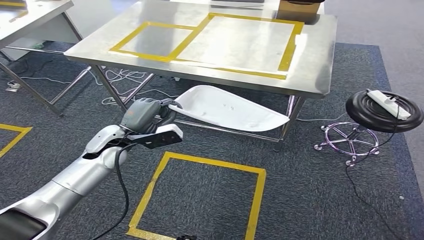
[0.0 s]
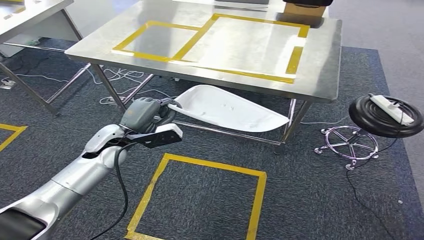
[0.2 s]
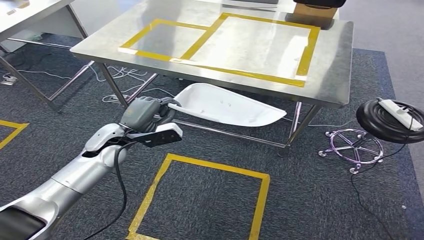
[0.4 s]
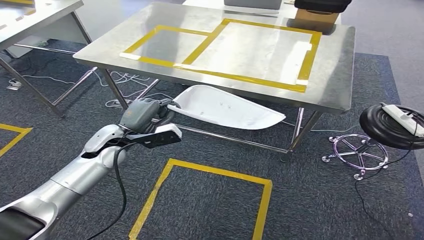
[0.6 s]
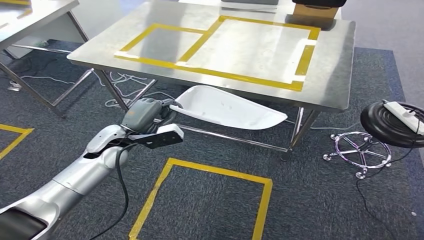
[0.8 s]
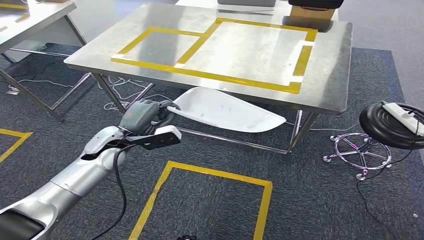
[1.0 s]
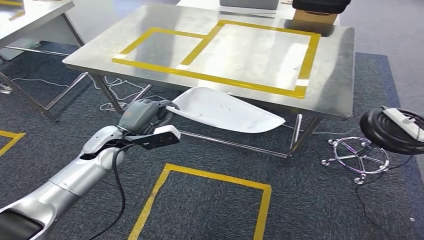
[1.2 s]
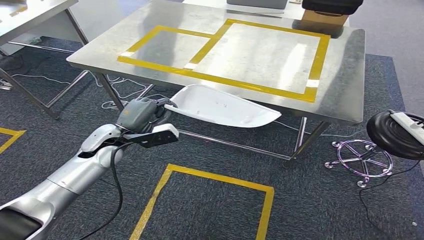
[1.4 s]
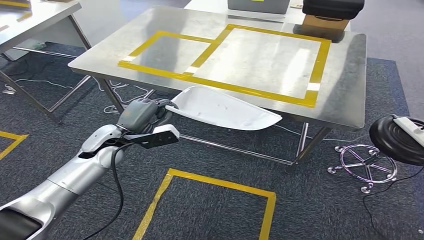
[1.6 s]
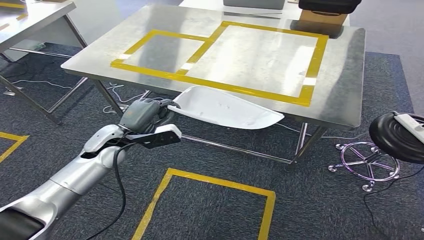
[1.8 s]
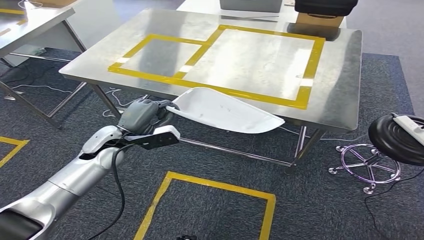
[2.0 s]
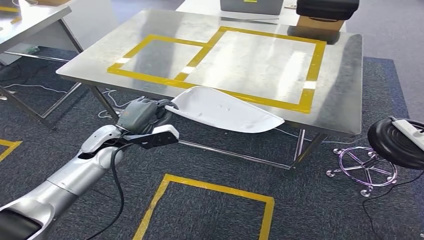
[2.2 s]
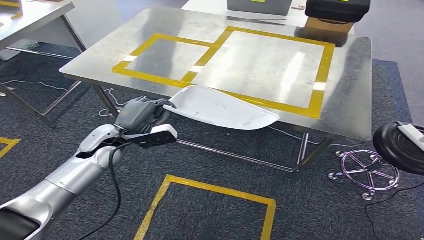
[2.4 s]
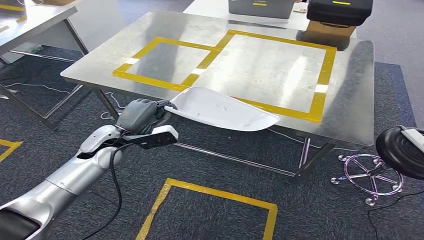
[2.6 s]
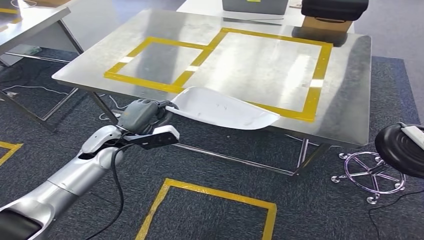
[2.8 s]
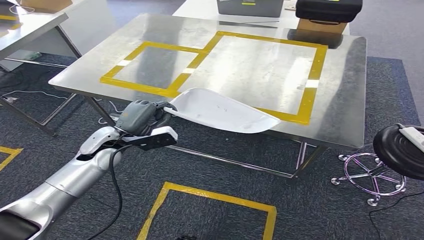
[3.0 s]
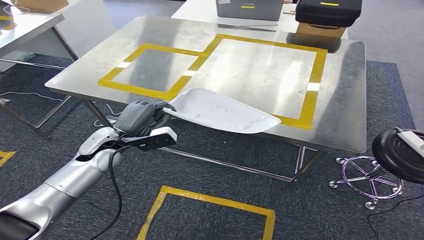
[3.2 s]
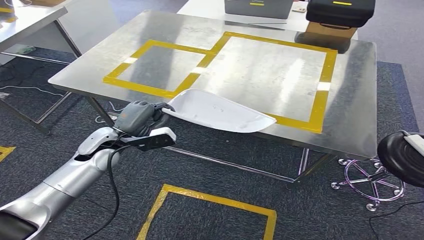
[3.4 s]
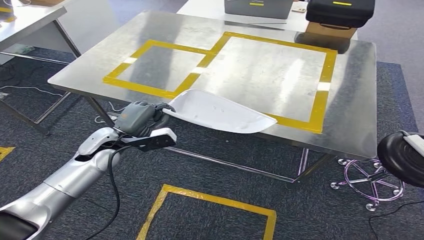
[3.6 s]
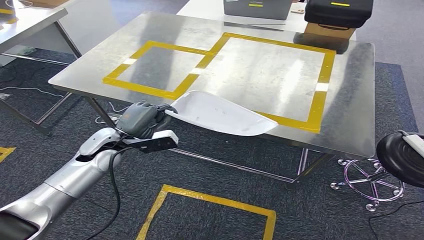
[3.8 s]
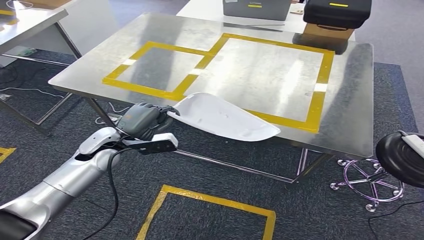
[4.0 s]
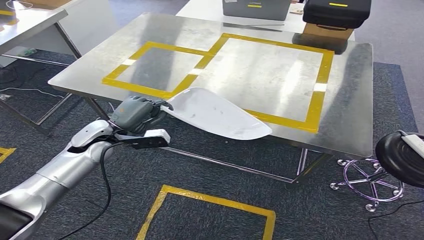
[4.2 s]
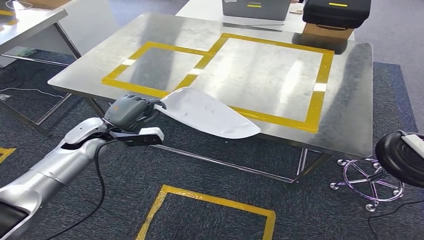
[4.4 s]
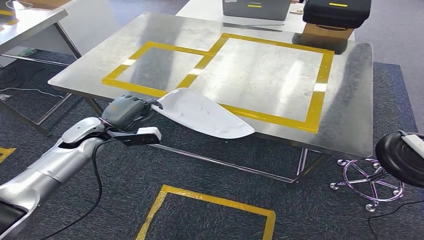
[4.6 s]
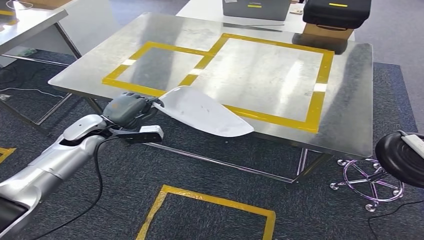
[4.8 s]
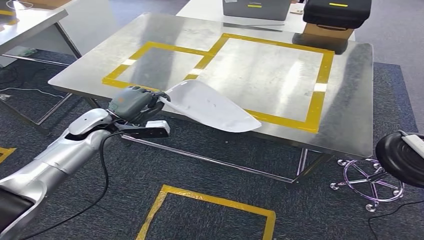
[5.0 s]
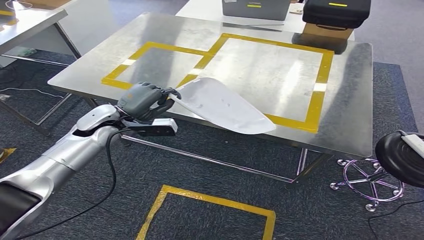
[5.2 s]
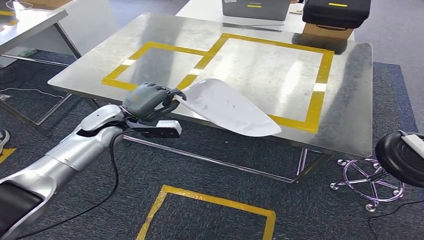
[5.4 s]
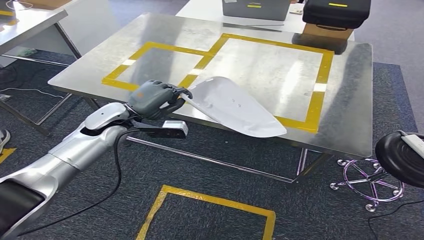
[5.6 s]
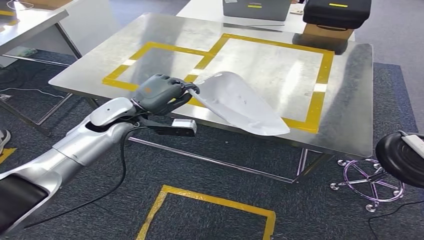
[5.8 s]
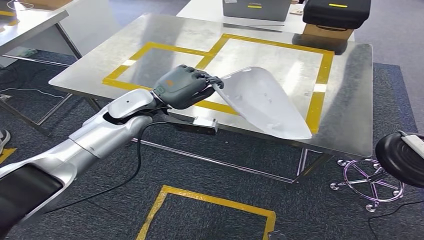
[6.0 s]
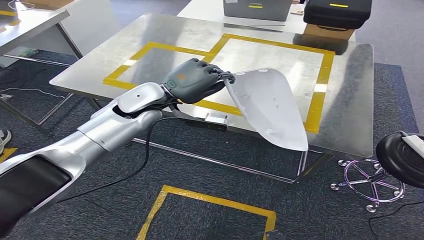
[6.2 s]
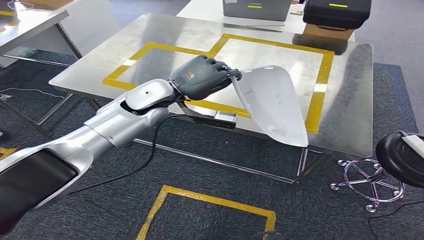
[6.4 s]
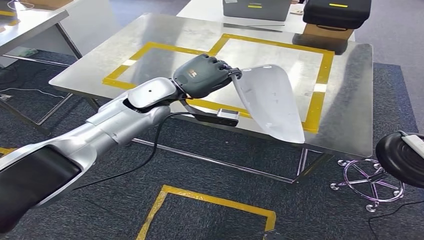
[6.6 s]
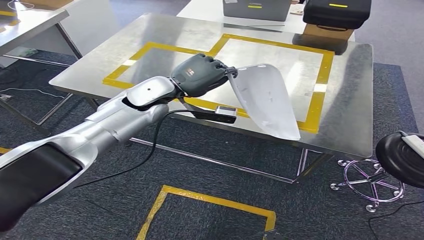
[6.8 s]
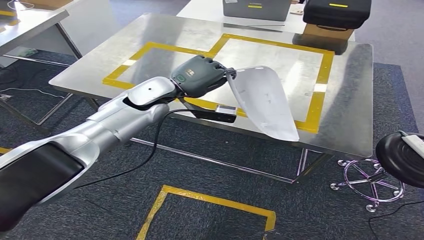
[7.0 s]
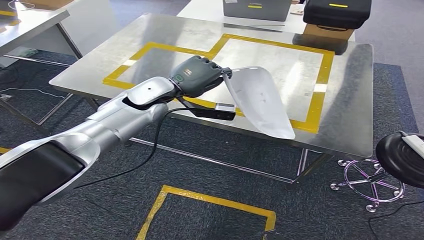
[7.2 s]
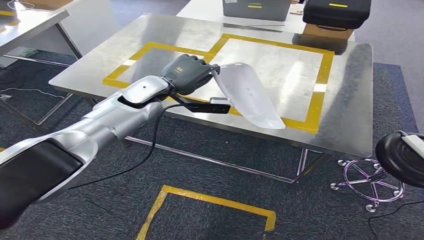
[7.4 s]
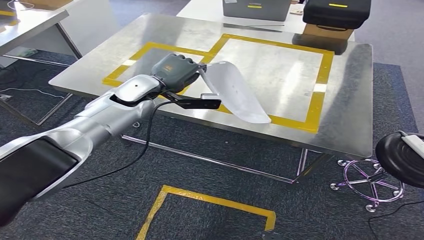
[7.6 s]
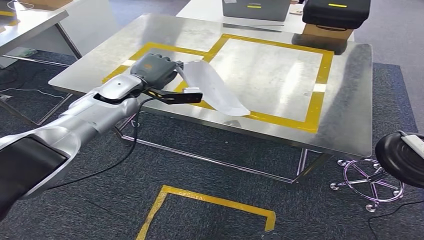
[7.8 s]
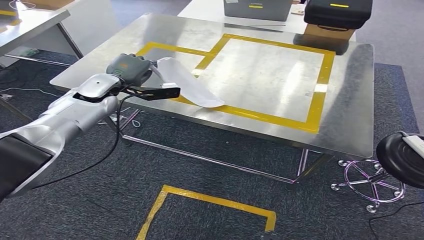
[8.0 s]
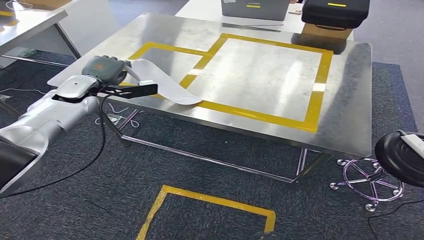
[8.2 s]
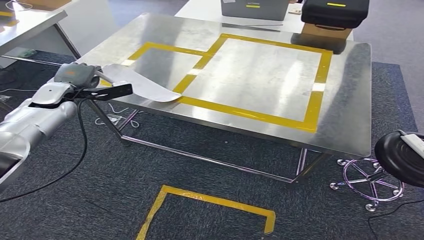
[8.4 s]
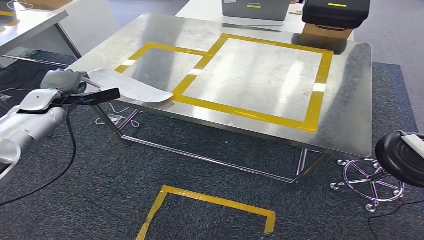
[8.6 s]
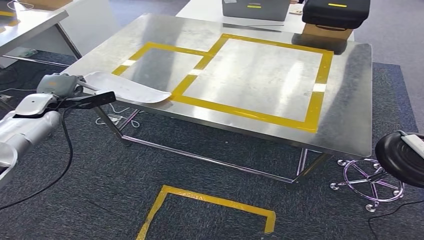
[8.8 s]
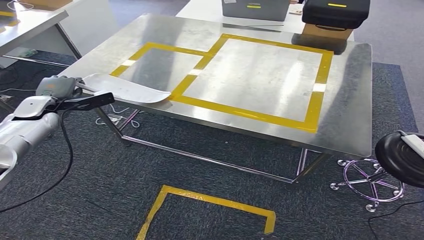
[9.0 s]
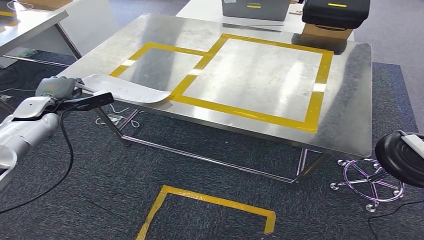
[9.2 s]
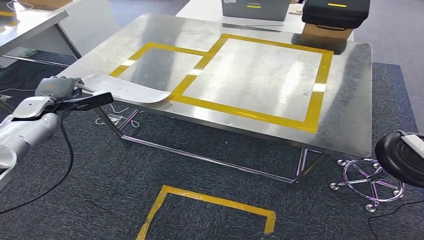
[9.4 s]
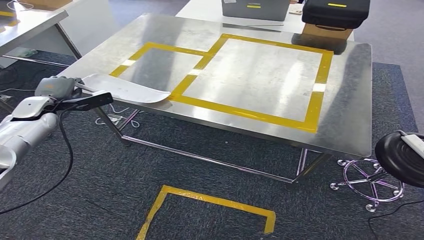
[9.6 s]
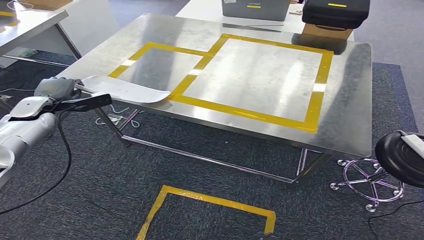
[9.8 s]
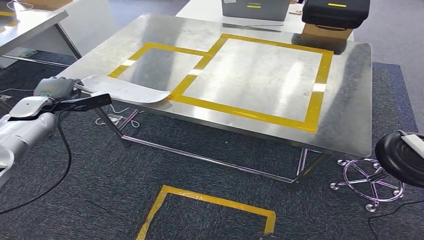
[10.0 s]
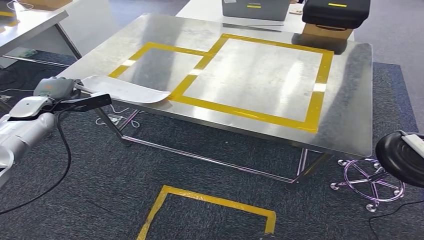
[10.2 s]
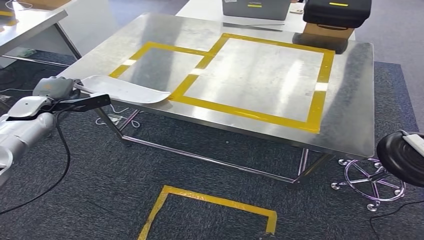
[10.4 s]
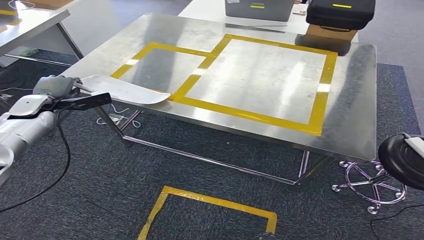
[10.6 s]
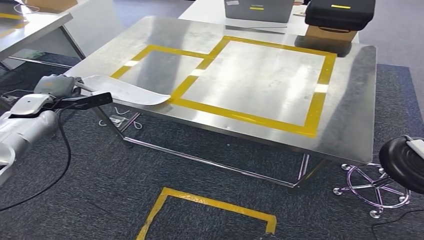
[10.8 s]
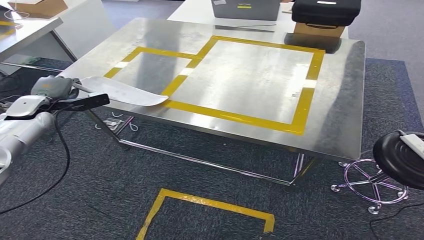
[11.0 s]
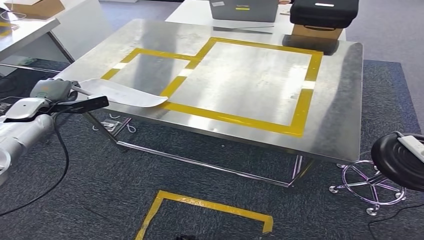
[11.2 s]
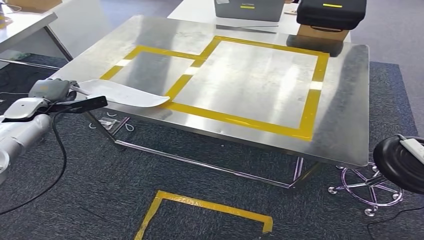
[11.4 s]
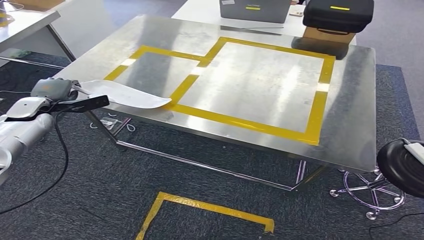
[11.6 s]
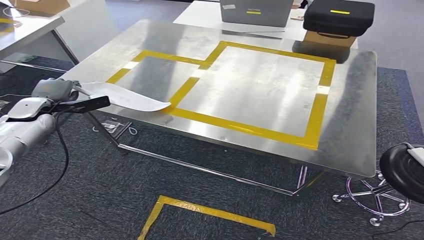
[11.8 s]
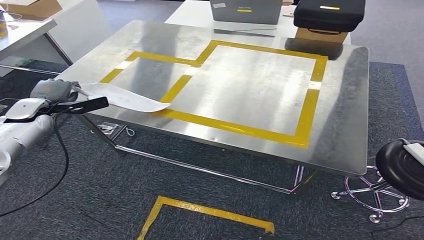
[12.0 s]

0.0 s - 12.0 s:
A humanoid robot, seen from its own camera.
Step, 0.0 s - 6.4 s: Move the small parts to the workbench.
4.4 s - 6.0 s: The left hand moves to the right, upward and forward, some 15 cm.
7.6 s - 9.0 s: The left hand heads to the left, covering some 25 cm.
9.0 s - 10.4 s: Neither hand changes place.

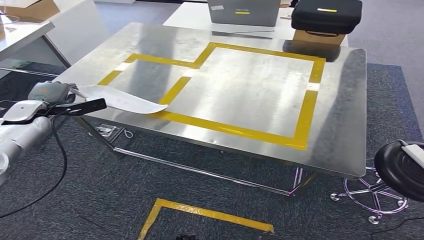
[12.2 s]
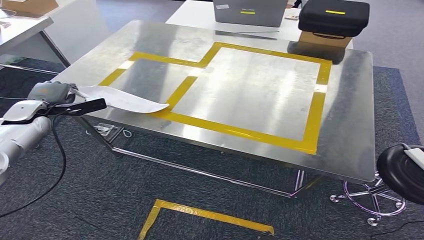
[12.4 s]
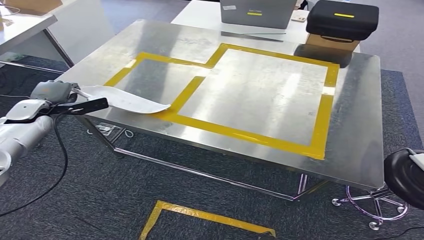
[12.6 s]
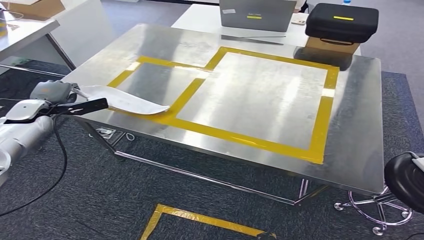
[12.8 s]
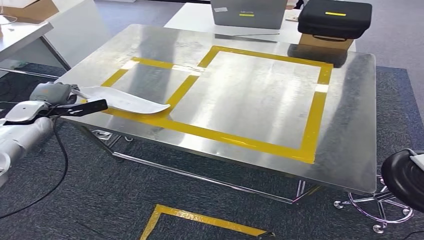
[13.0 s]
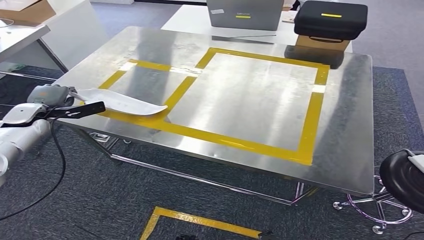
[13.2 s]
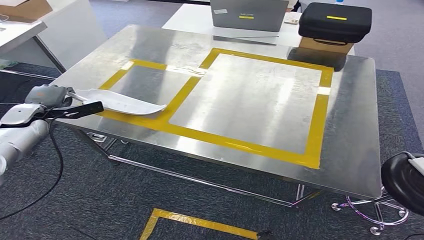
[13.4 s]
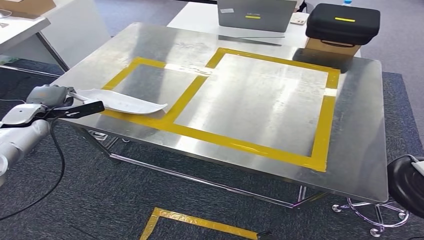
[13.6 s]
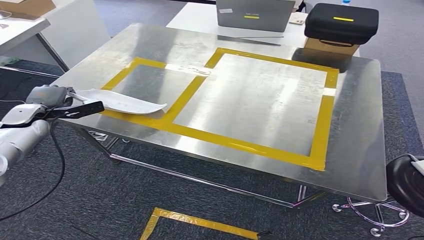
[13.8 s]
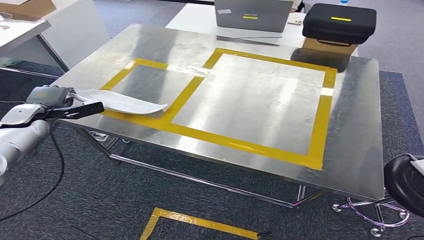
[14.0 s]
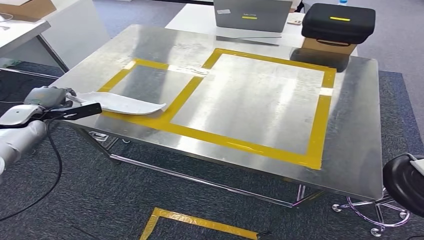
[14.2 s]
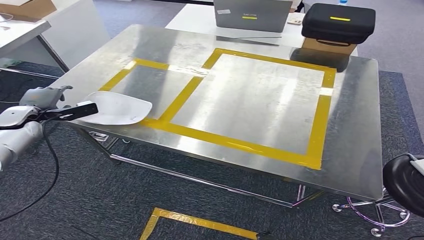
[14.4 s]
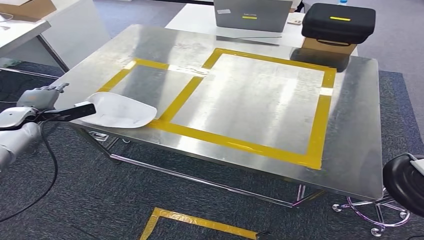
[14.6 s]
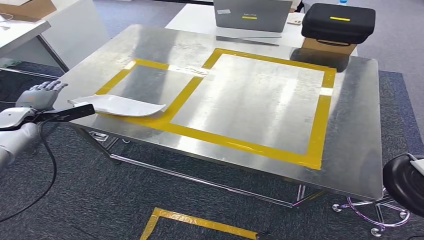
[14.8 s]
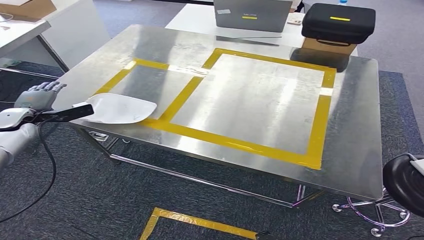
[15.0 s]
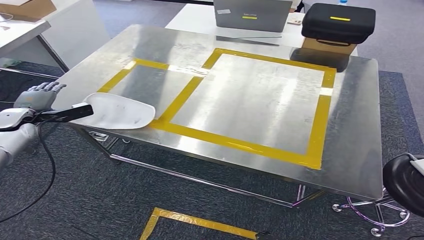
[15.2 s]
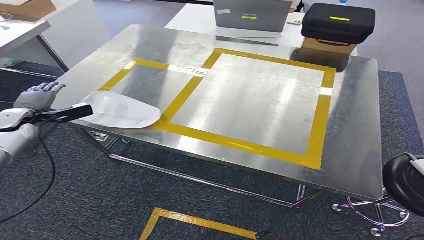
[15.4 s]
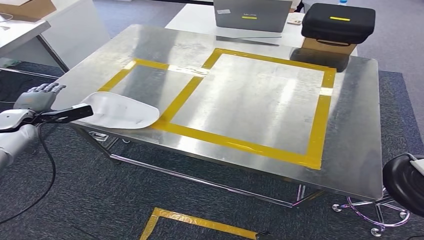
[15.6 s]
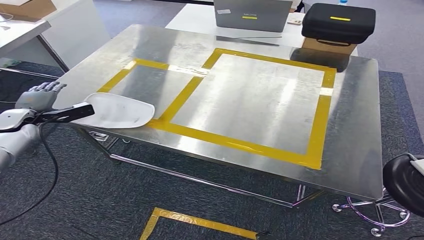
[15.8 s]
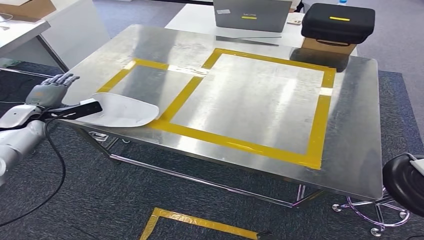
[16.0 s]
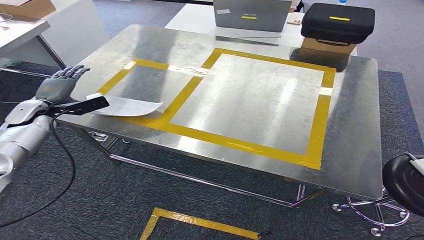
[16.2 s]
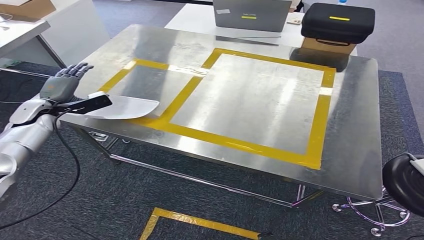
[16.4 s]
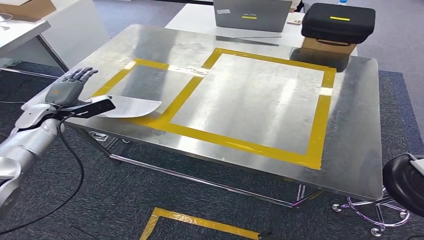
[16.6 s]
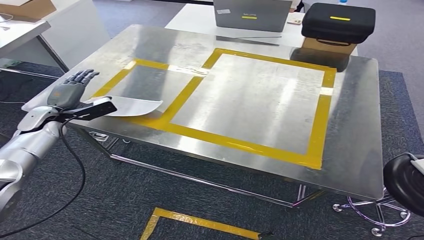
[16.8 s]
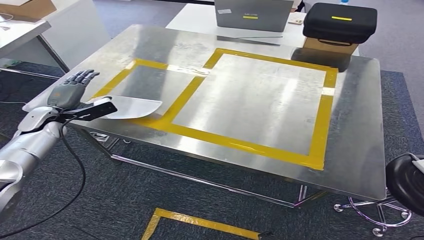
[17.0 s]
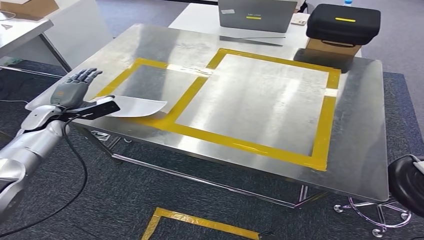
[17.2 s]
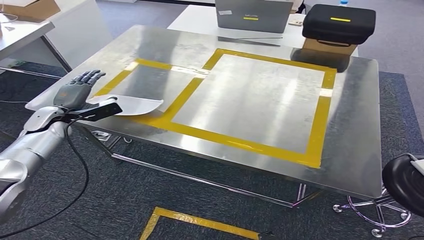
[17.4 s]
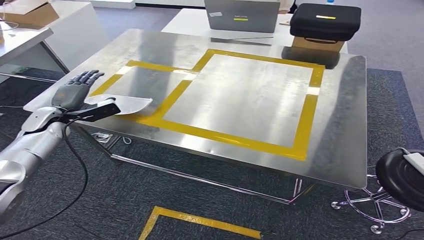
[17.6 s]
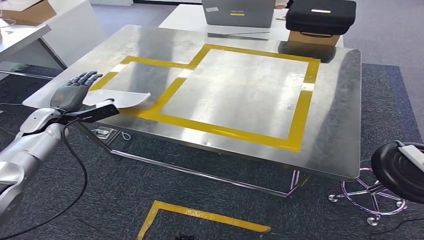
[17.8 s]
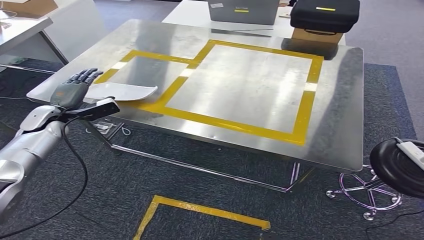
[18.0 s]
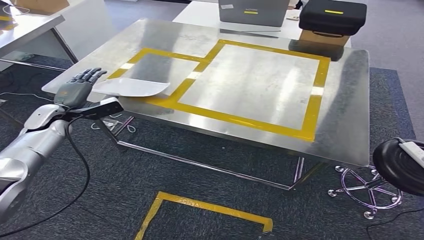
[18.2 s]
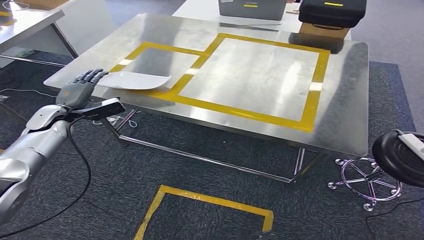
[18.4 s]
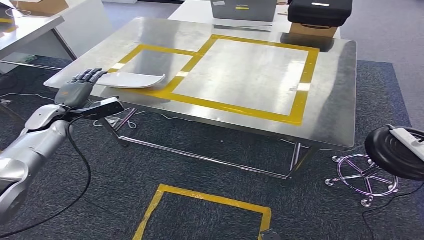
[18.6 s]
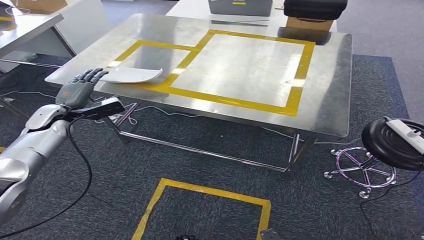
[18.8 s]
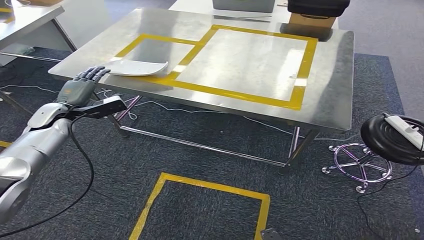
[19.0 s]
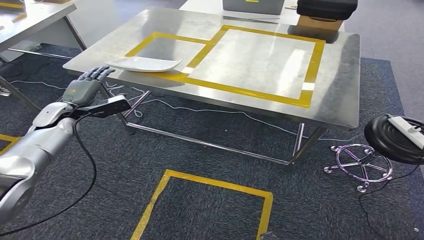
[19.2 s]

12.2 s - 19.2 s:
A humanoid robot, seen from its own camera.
Step, 12.2 s - 15.2 s: Insert the small parts into the corresponding slots on the workbench.
13.6 s - 15.0 s: The hands make only small movements.
15.0 s - 16.4 s: The left hand shifts some 5 cm to the right.
